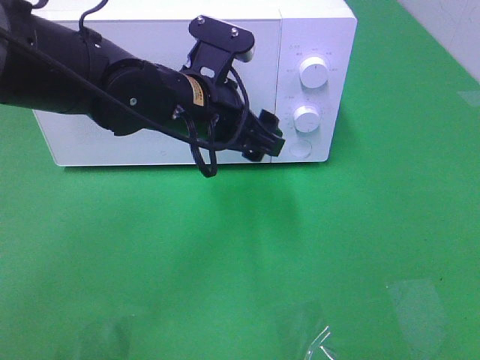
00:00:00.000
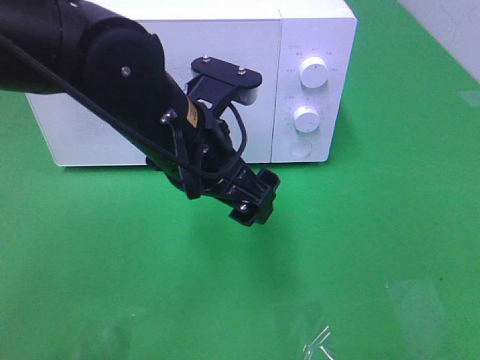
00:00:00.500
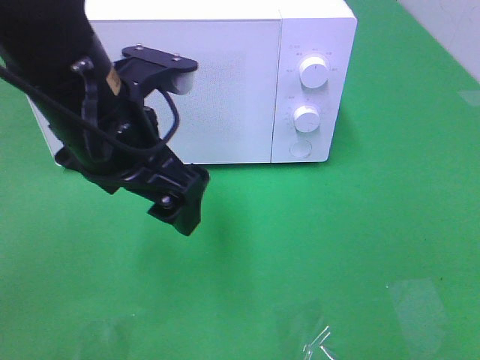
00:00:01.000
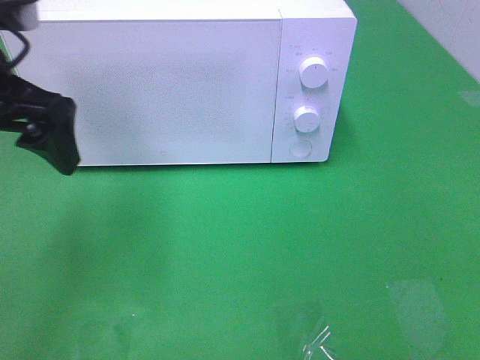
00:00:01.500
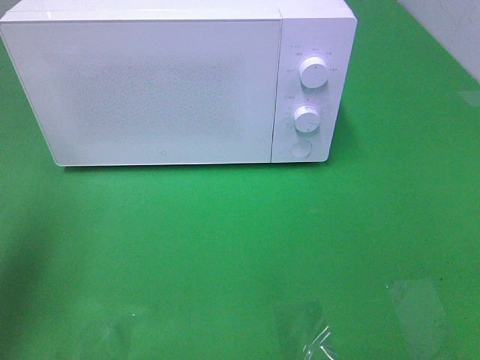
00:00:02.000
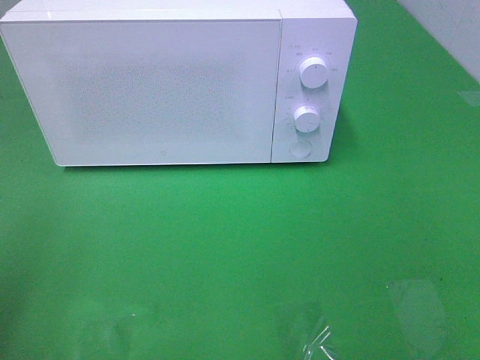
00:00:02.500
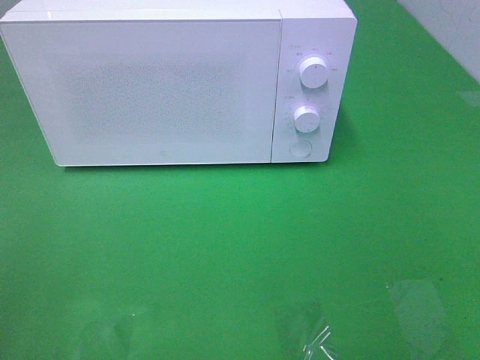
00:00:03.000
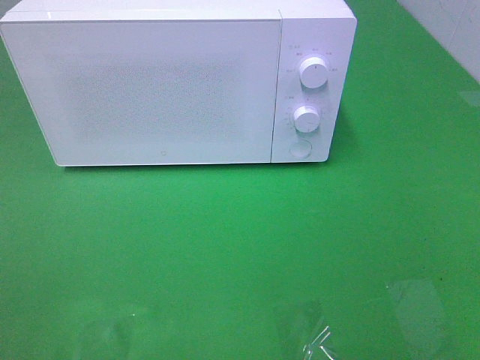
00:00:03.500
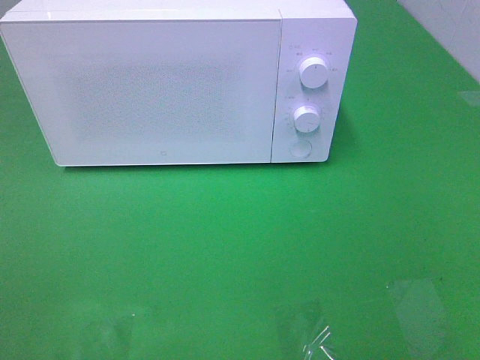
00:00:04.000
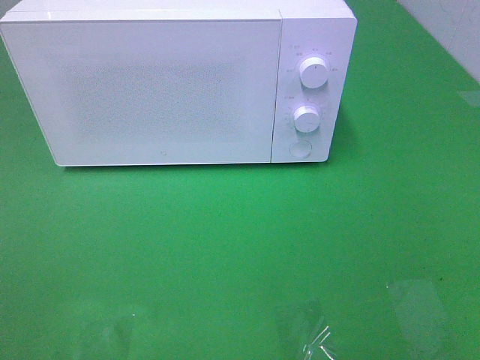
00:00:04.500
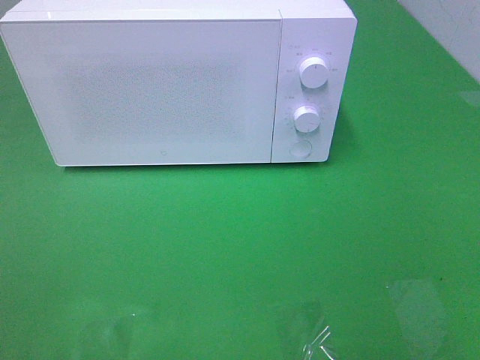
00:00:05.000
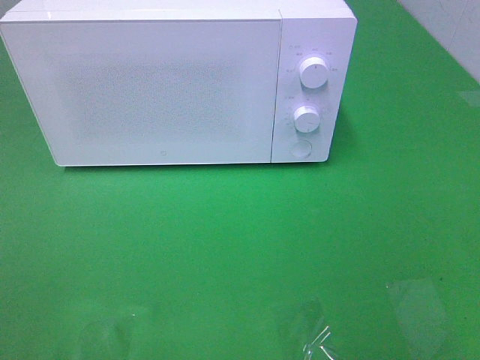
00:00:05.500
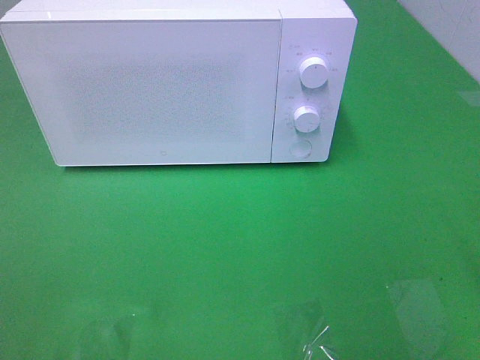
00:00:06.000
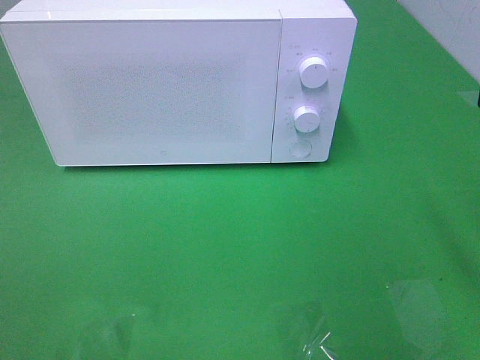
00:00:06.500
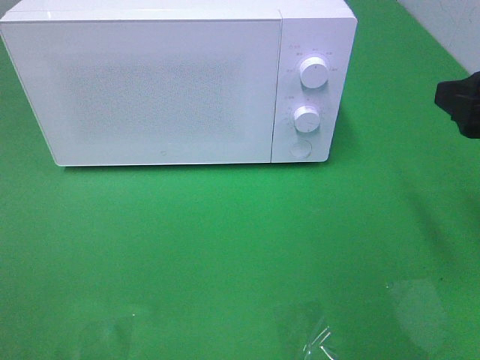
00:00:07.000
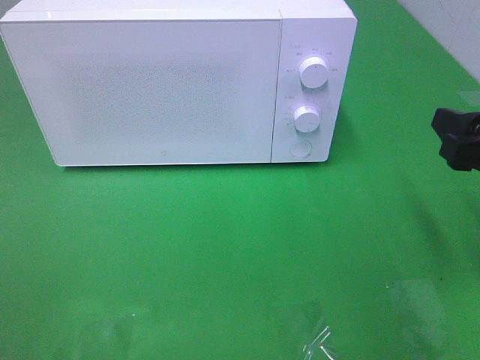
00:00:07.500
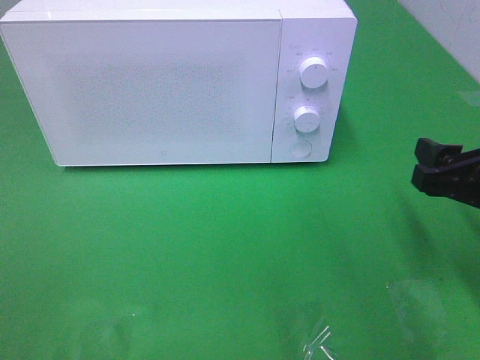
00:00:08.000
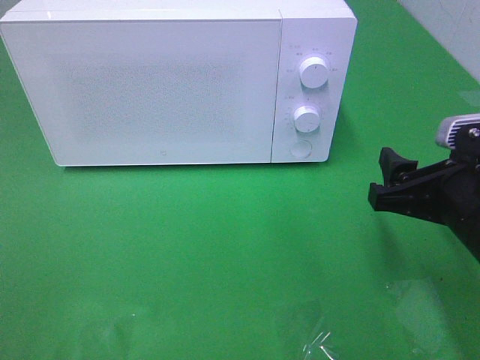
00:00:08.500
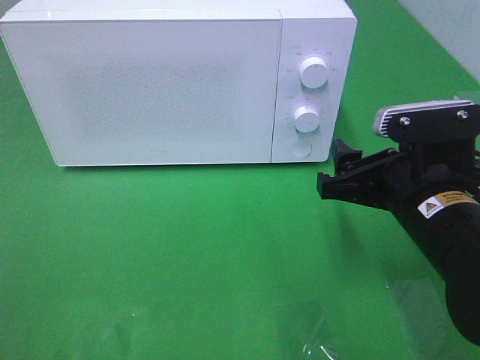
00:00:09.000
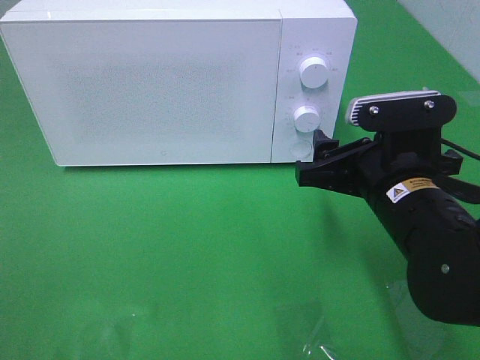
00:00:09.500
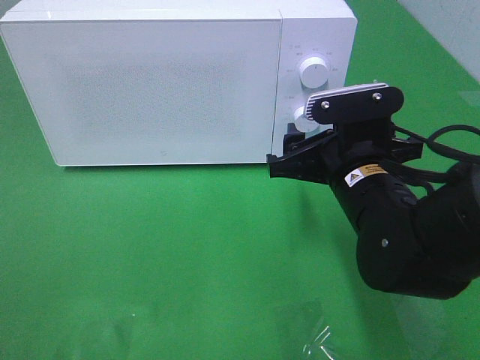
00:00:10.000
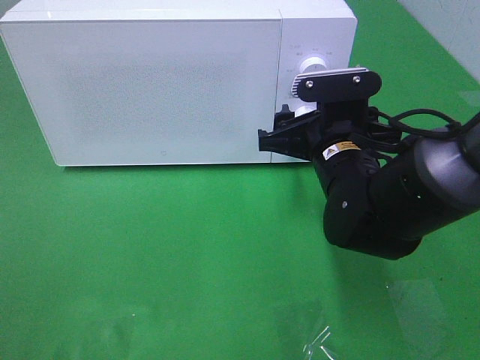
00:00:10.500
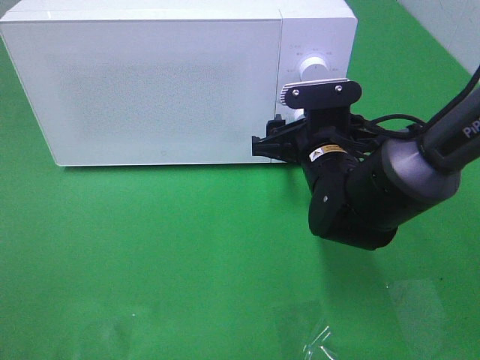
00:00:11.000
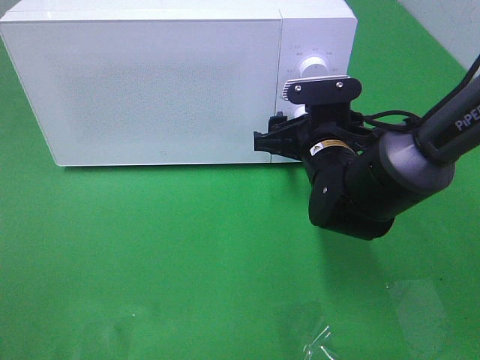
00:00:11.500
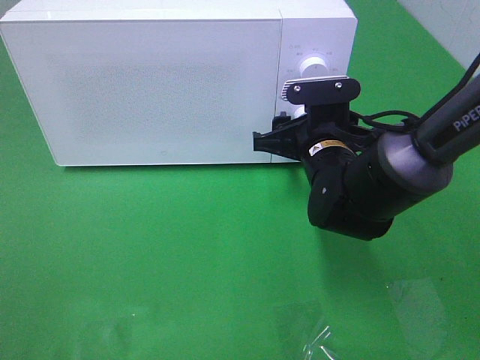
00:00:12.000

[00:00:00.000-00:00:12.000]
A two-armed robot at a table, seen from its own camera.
Task of the whole recording: Heat the burger.
00:00:00.000 to 00:00:02.000: The left gripper shifts about 25 cm to the left.
00:00:02.000 to 00:00:04.000: The left gripper travels backward by about 20 cm.
00:00:06.000 to 00:00:08.000: The right gripper is displaced downward and forward by roughly 15 cm.
00:00:08.000 to 00:00:10.000: The right gripper shifts roughly 15 cm to the left and forward.
00:00:10.000 to 00:00:12.000: The right gripper travels forward by roughly 5 cm.

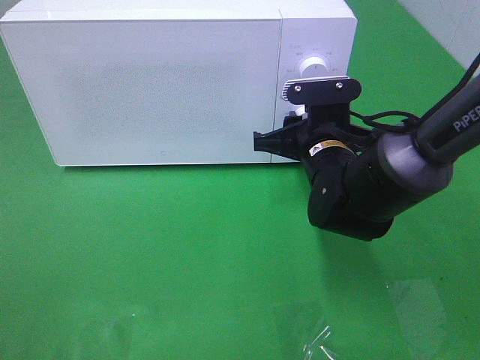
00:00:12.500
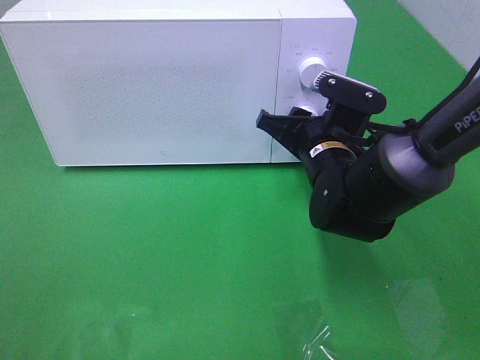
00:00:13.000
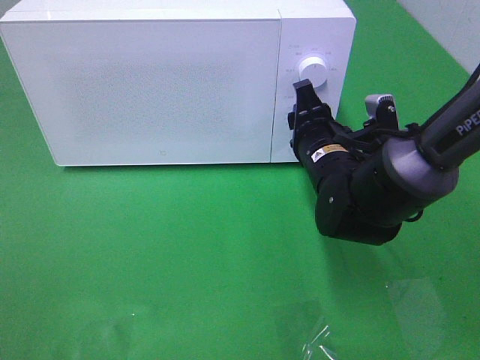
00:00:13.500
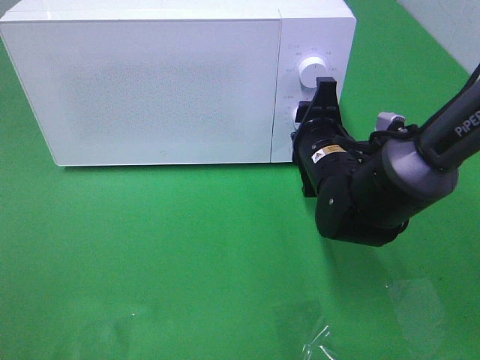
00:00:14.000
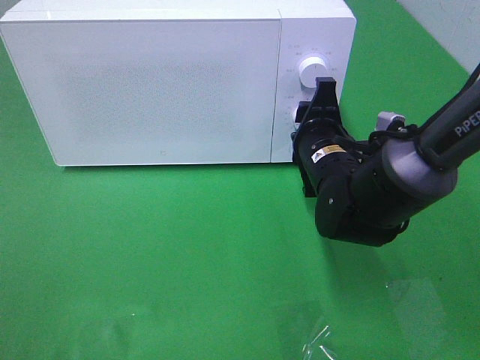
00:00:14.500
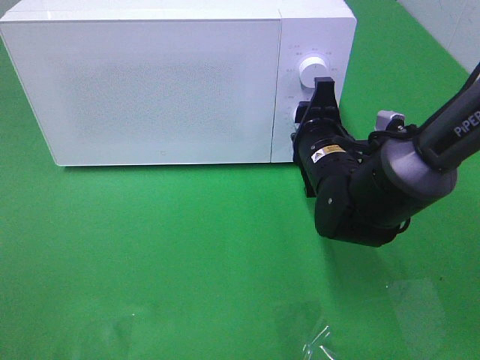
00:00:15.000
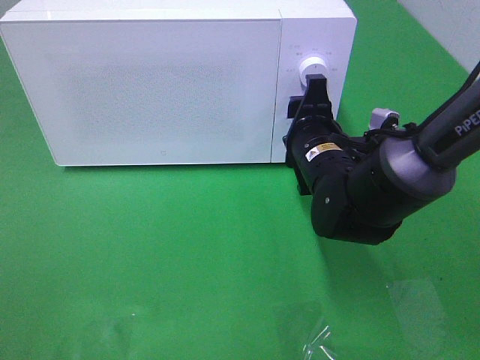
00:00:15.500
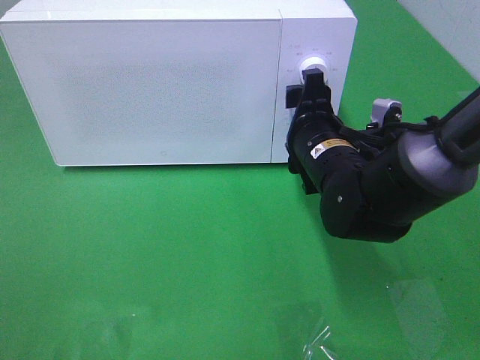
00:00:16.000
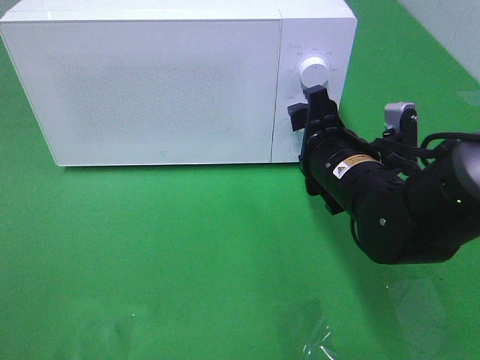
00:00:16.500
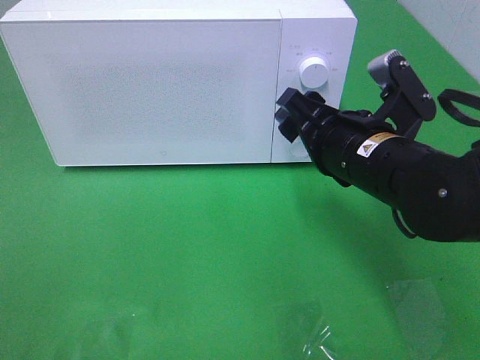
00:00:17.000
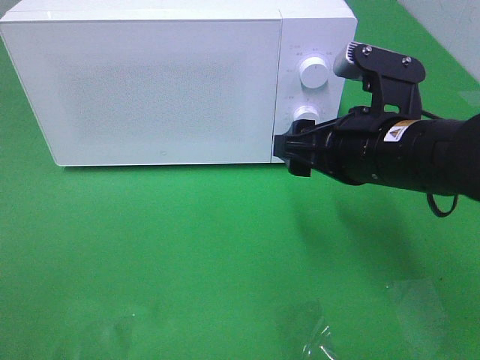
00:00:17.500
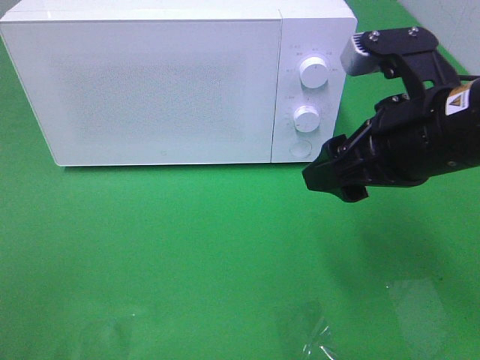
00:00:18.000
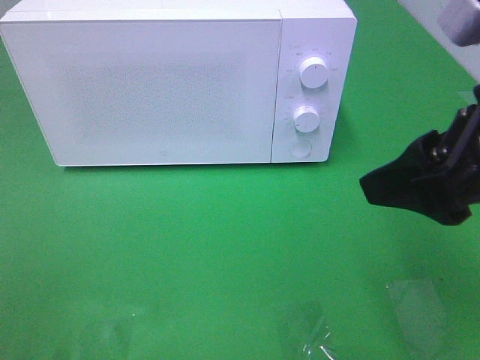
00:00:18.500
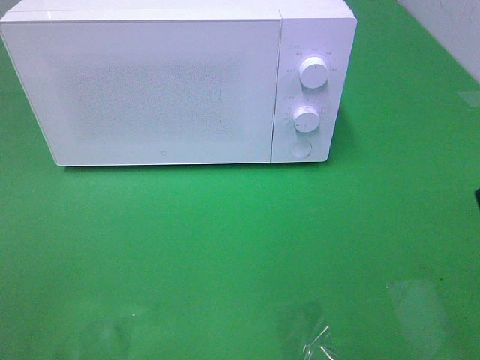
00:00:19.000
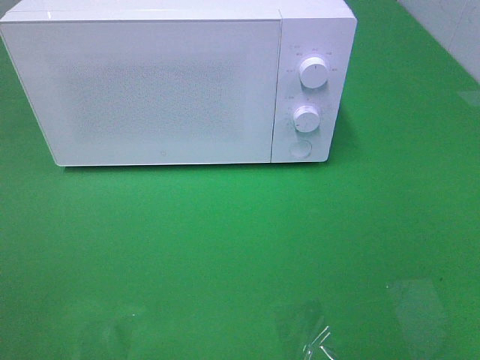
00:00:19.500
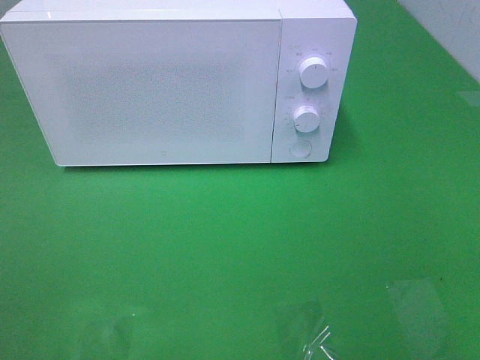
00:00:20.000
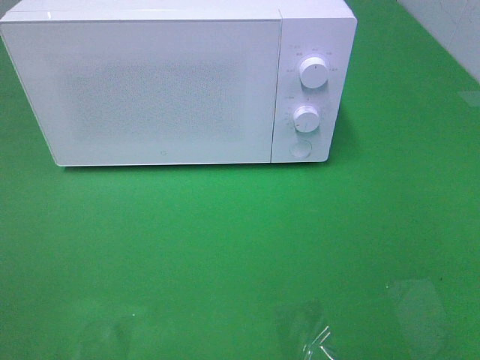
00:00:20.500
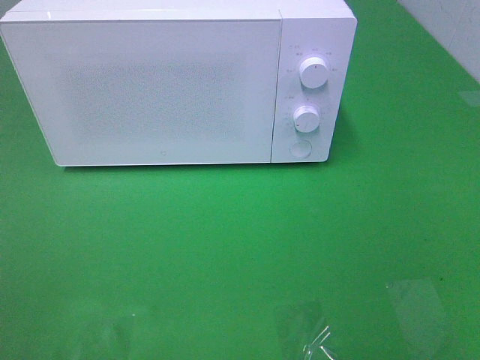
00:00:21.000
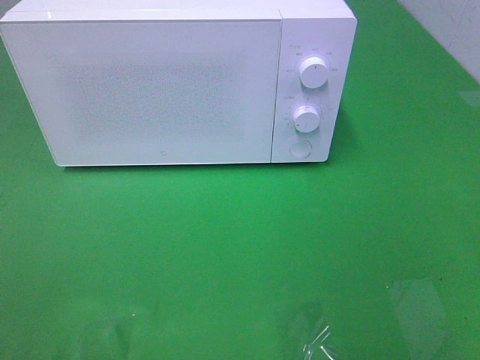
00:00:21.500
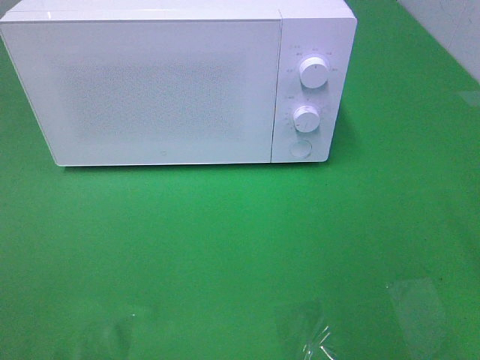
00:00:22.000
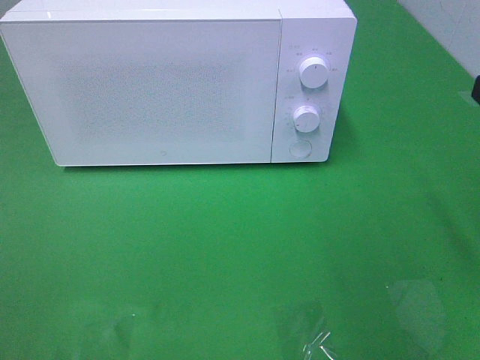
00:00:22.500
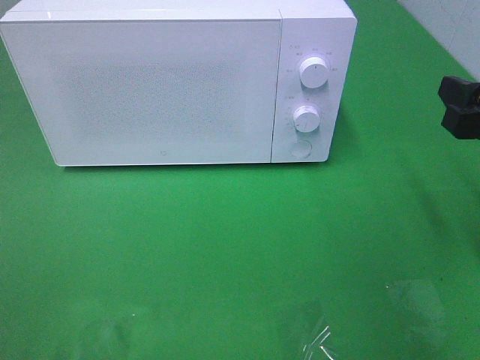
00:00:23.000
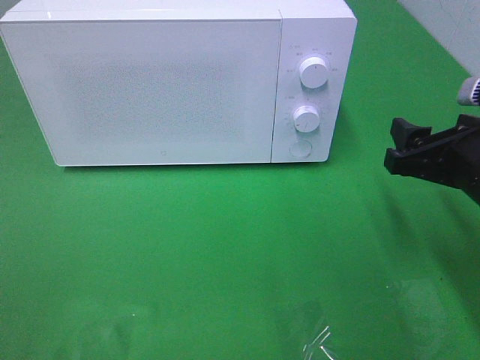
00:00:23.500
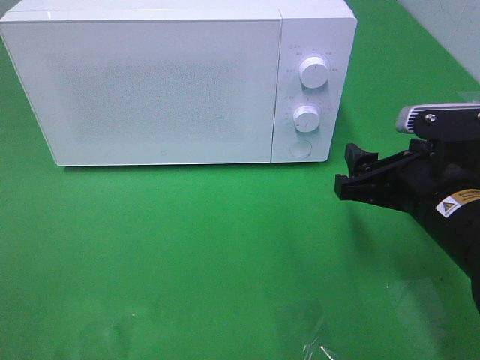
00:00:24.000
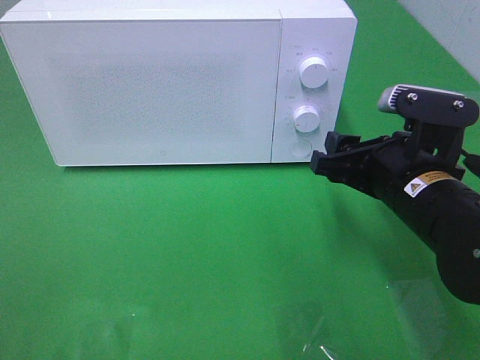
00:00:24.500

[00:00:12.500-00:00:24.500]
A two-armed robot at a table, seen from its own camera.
Task of the whole recording: Heat the burger.
Step, 00:00:12.500 to 00:00:15.500: Right hand: twist timer button.
00:00:14.500 to 00:00:16.500: There are only small adjustments of the grippers.
00:00:16.500 to 00:00:18.500: The right gripper travels upward, backward and to the right by about 20 cm.
00:00:18.500 to 00:00:20.500: The right gripper travels backward and to the right by some 20 cm.
00:00:22.500 to 00:00:24.500: The right gripper shifts some 15 cm to the left, downward and forward.

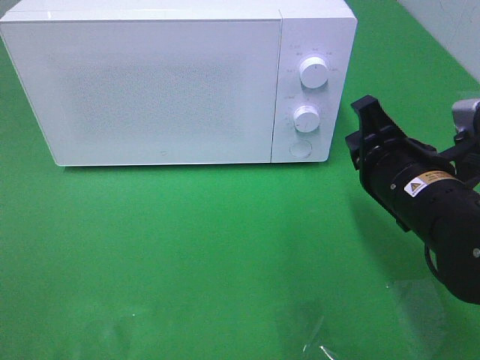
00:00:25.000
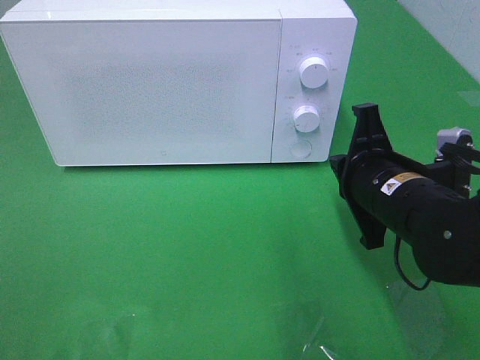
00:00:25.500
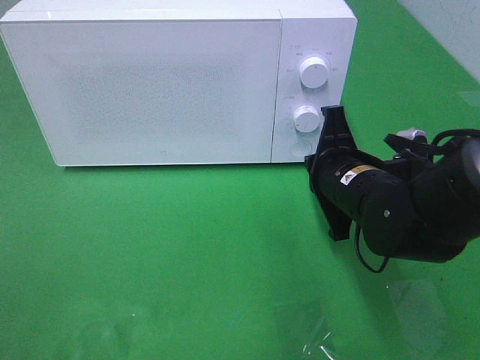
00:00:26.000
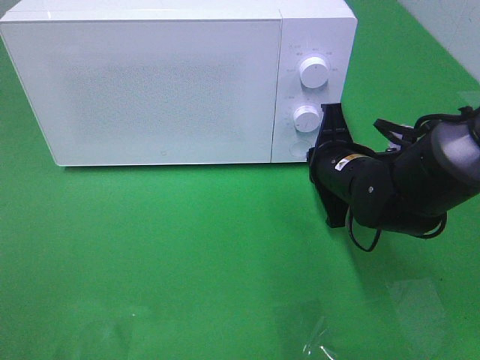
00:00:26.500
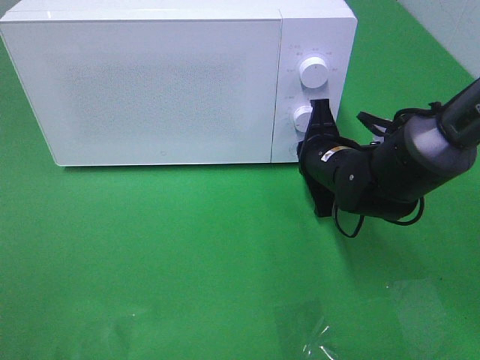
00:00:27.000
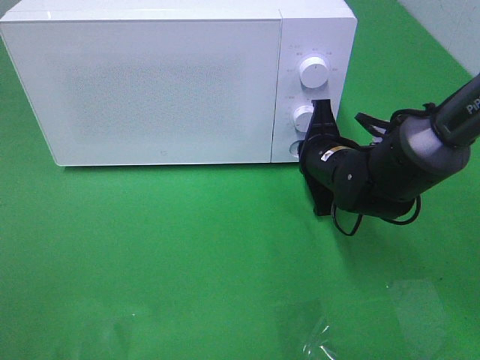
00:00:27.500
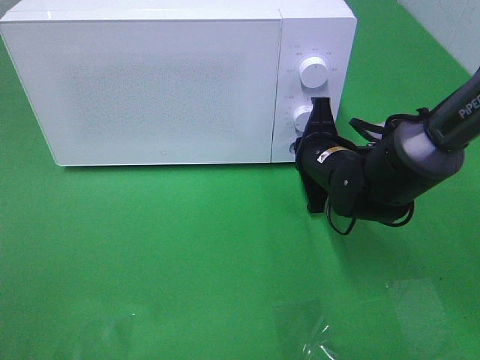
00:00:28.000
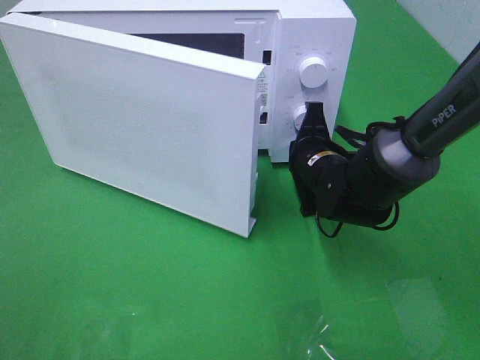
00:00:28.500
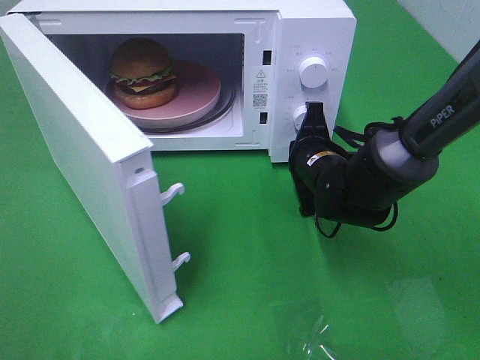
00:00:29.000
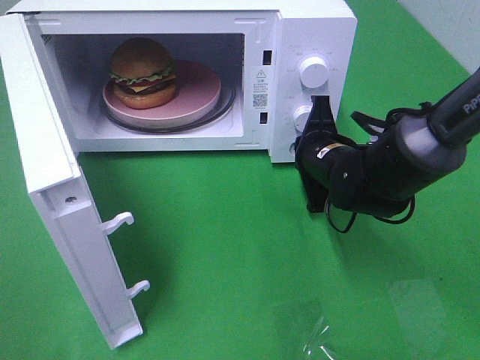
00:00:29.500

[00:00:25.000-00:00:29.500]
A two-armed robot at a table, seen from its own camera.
Task of the whole recording: Heat the burger.
00:00:25.000 to 00:00:27.000: The right gripper travels forward and downward by some 15 cm.
